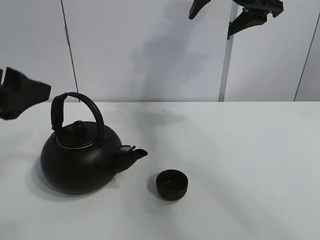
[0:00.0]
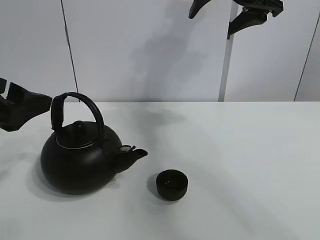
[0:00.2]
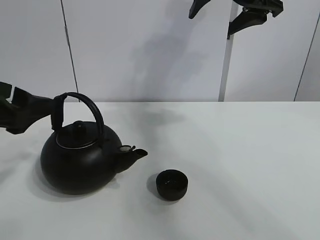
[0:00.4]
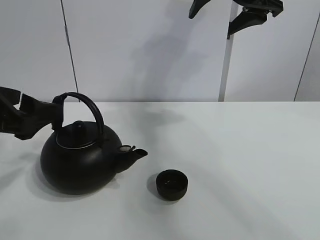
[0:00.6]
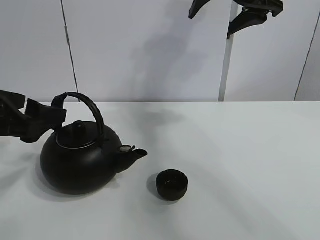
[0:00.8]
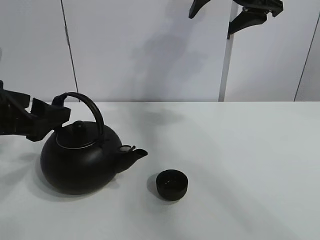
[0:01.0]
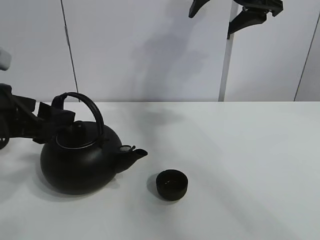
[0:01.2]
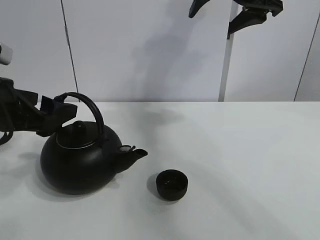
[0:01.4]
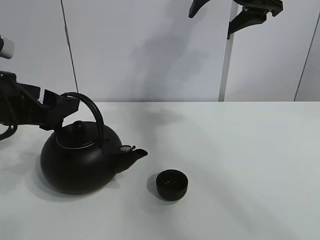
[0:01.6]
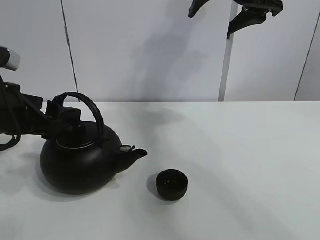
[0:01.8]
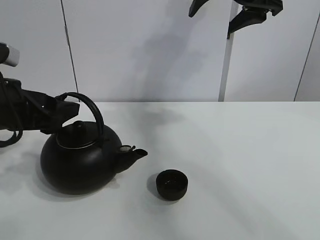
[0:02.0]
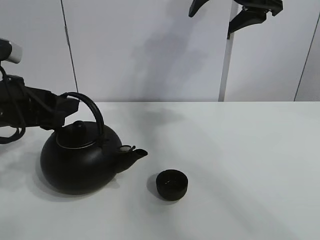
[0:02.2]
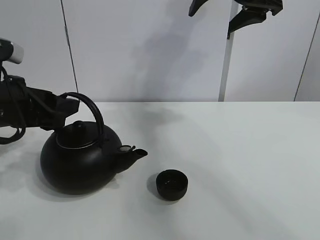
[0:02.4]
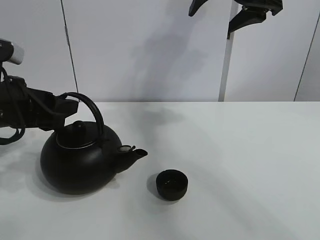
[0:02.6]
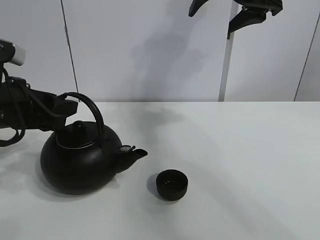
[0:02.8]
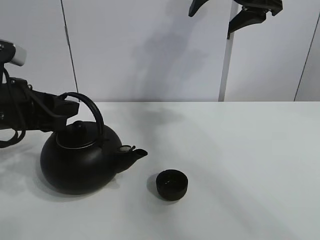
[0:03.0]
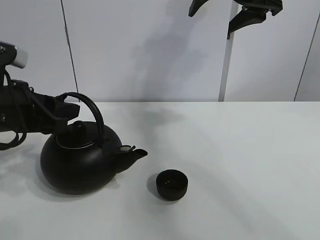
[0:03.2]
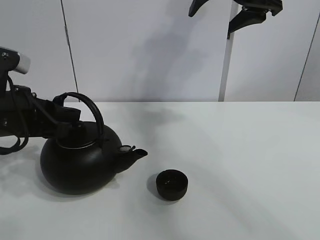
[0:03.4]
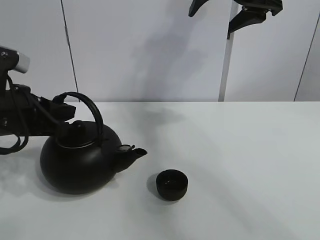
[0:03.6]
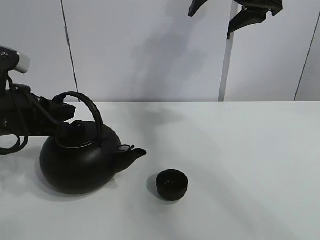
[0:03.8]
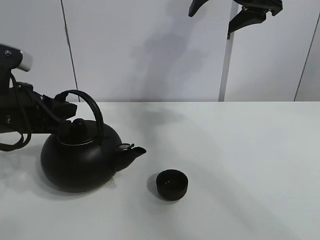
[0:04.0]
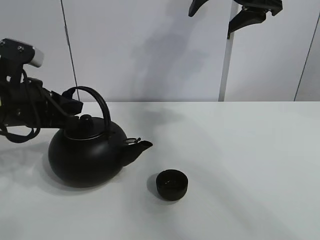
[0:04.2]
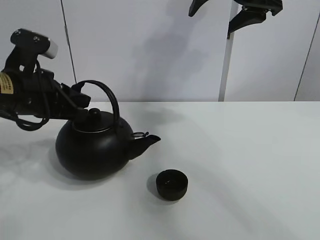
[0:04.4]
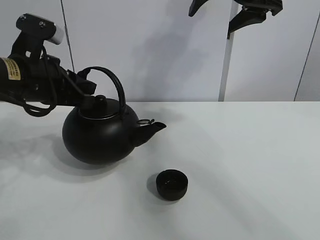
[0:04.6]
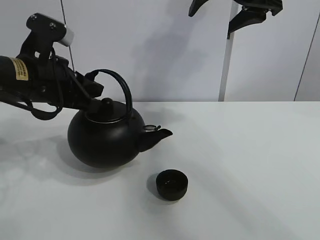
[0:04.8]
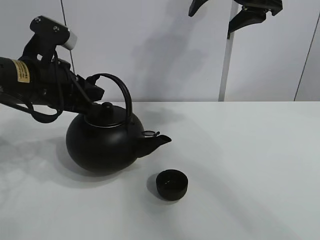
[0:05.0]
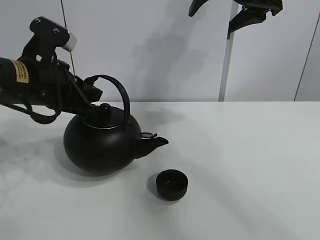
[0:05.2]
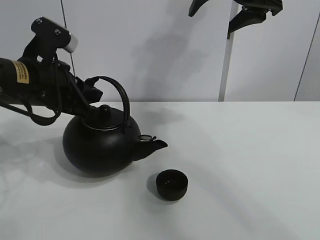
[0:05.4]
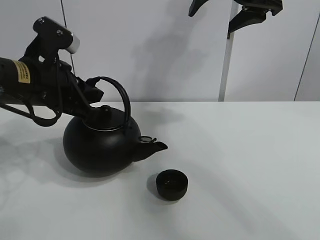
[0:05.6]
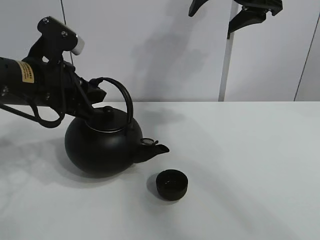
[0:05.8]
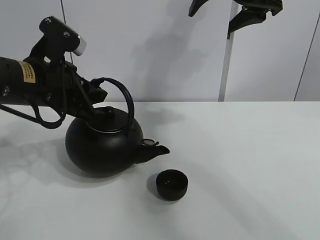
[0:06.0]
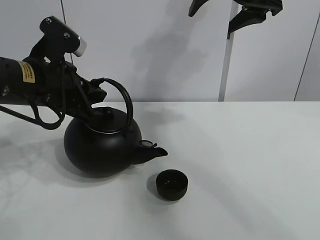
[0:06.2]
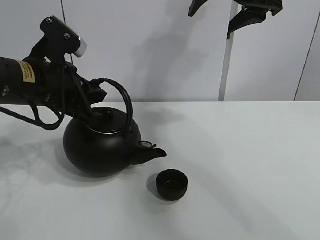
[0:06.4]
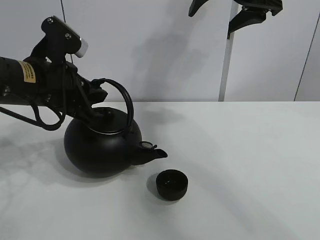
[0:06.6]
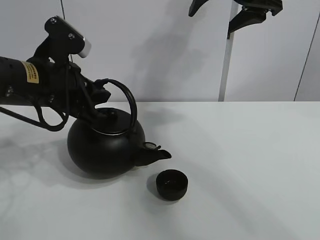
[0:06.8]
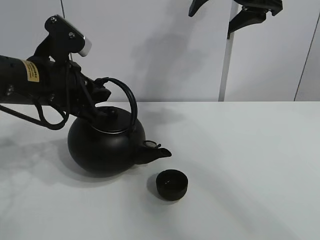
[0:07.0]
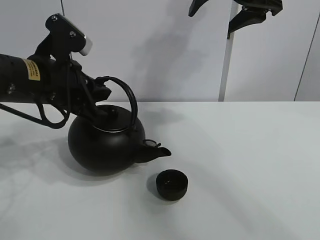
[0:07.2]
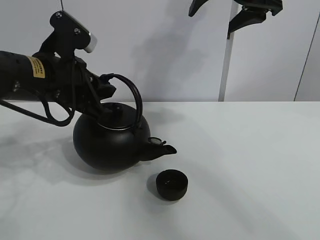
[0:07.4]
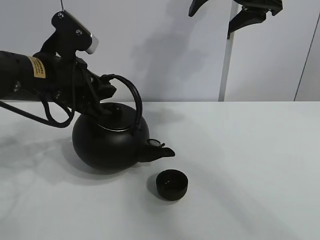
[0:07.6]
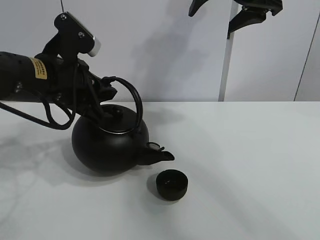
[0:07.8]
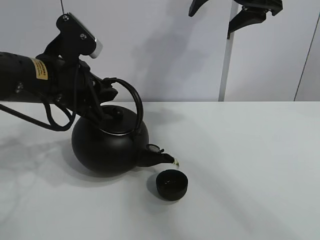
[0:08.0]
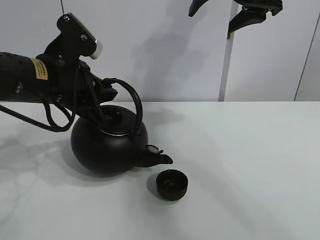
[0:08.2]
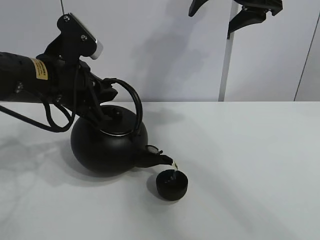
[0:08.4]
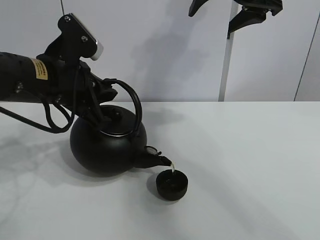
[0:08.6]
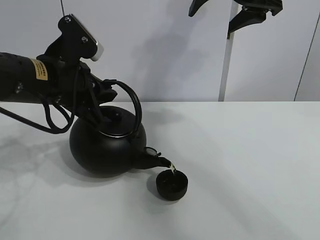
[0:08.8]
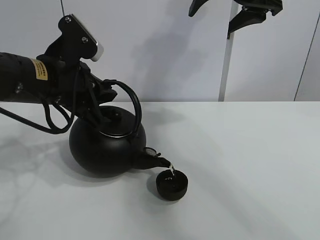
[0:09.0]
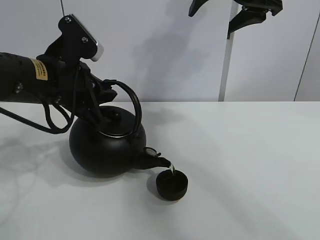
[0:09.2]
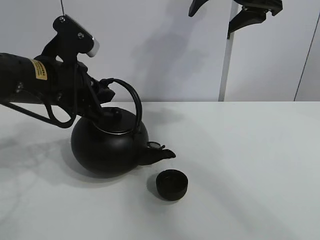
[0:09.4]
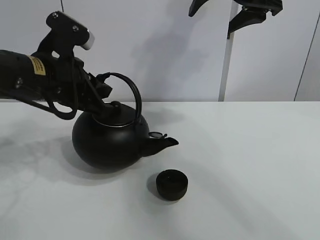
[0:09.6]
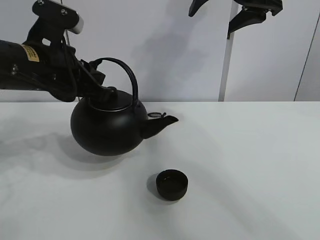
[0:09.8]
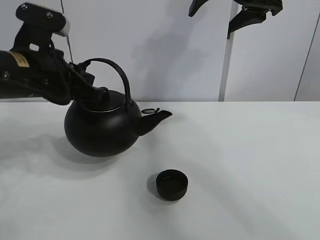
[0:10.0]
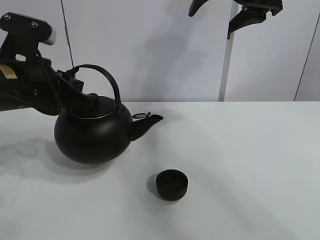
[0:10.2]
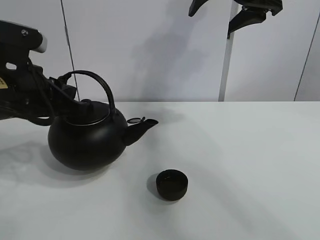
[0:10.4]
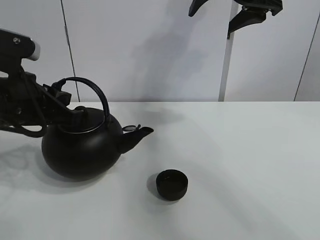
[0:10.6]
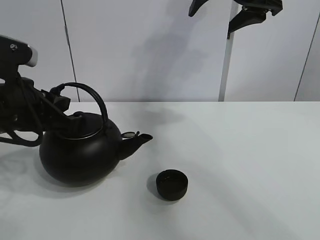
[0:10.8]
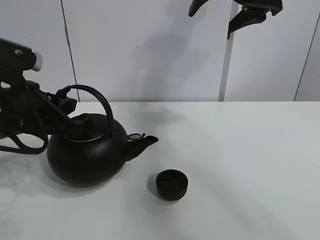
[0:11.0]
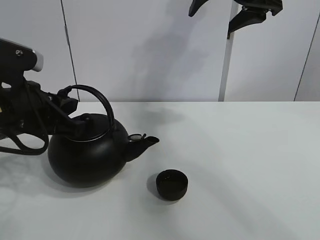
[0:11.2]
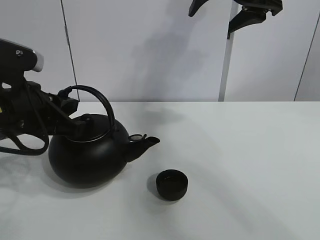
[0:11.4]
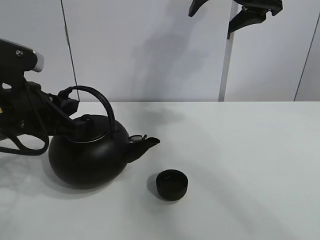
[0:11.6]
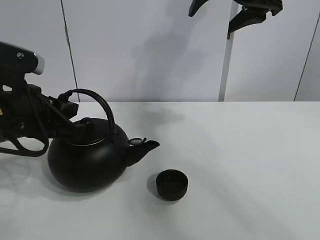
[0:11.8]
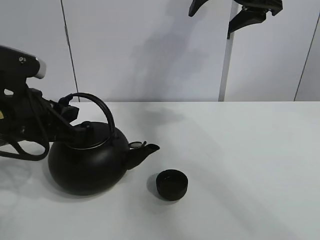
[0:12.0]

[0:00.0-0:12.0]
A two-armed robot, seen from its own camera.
Task of the whole recording: pour tea into the teacup.
Step, 0:00.0 to 0:04.0: Pick up the teapot with the left gripper.
Step, 0:04.2 to 0:09.4: Pour tea into the teacup with the left gripper.
0:00.0 to 0:01.6: The left gripper travels downward and forward by roughly 10 cm.
0:01.6 to 0:03.0: The left gripper closes its fingers.
0:03.0 to 0:04.4: The left gripper closes.
0:04.4 to 0:07.6: The grippers stay close to where they were, moving slightly.
0:07.6 to 0:09.0: The grippers move only a little.
0:10.4 to 0:12.0: The grippers stay close to where they were, moving slightly.

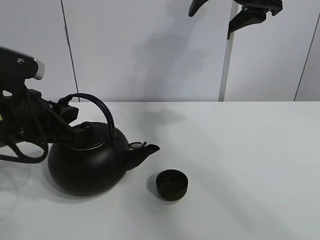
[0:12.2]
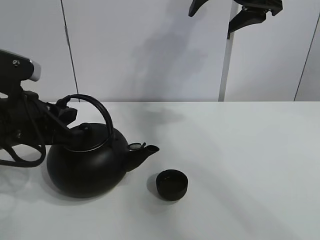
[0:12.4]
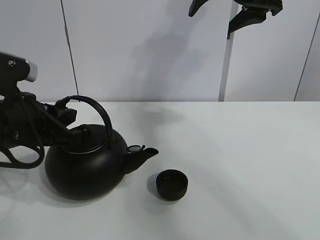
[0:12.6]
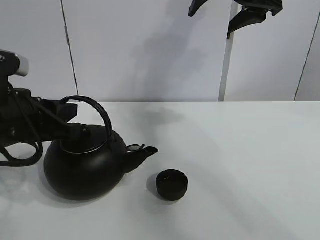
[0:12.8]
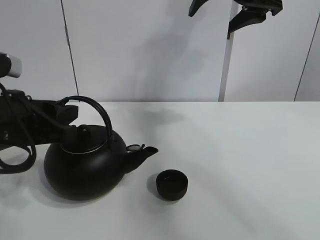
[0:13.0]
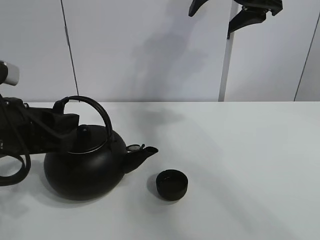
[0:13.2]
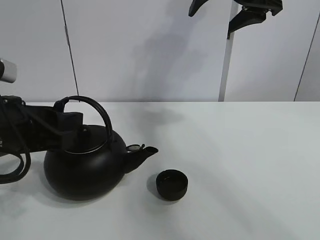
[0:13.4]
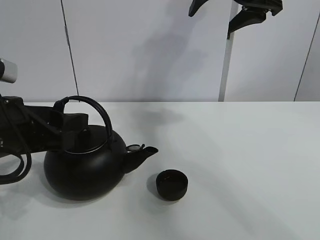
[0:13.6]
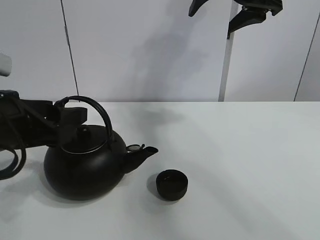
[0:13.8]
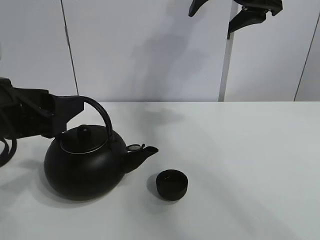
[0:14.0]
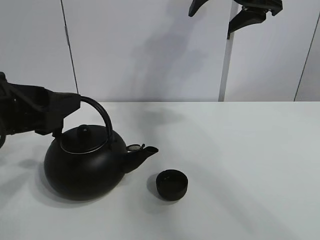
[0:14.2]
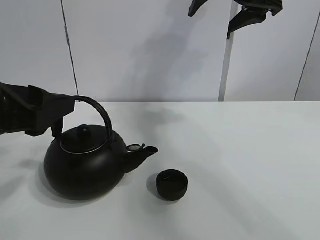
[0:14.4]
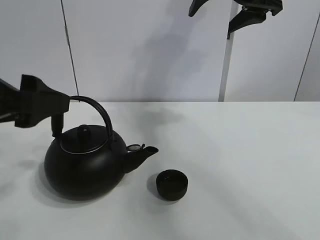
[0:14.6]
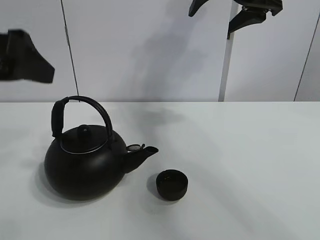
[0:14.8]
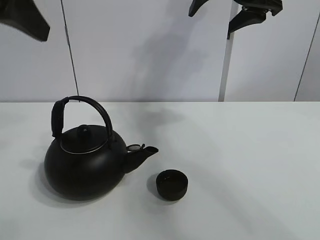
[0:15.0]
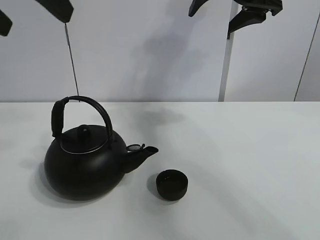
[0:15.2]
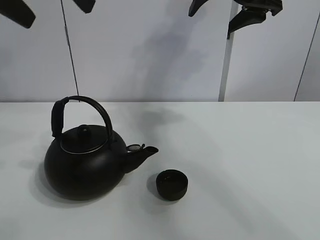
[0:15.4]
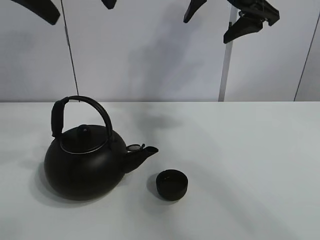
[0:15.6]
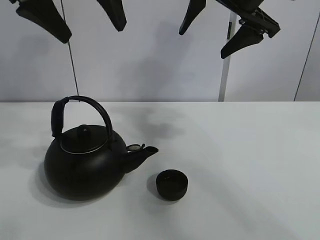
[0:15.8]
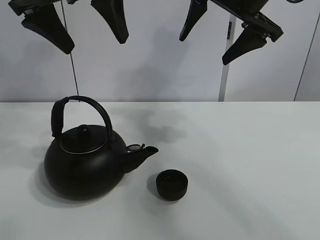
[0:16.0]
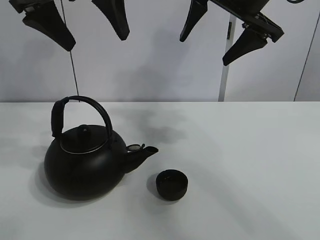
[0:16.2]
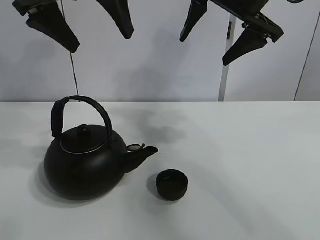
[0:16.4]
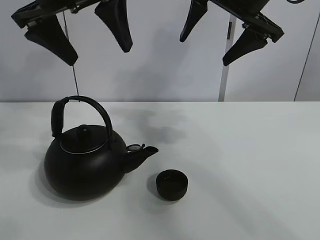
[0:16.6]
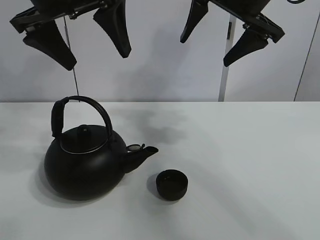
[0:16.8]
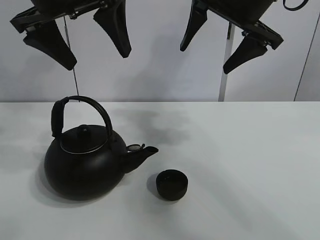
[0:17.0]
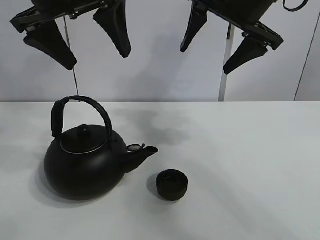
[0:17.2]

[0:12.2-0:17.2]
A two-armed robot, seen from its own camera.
Task of the whole recording: pour tea into the teacup.
0:12.2 to 0:13.8: The left gripper opens up.
0:13.8 to 0:15.6: The left gripper goes some 25 cm upward.
0:15.6 to 0:17.2: The left gripper is displaced downward by some 5 cm.

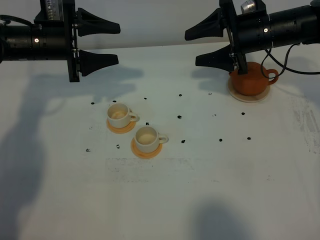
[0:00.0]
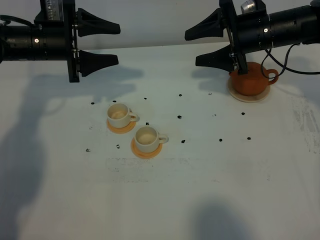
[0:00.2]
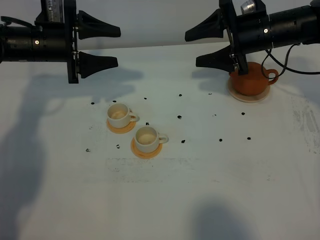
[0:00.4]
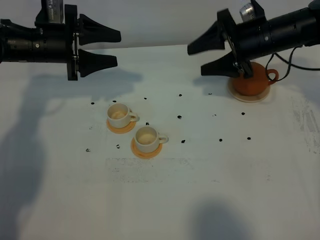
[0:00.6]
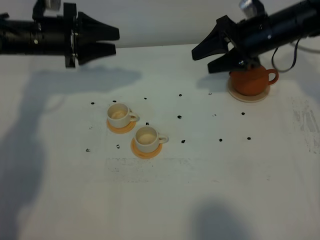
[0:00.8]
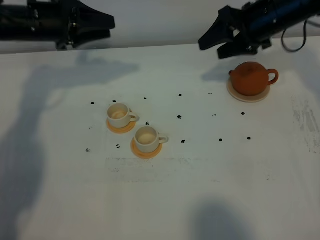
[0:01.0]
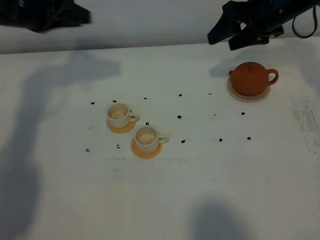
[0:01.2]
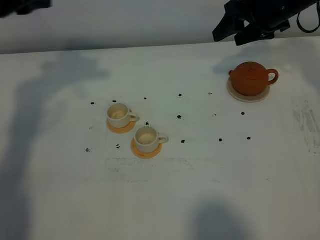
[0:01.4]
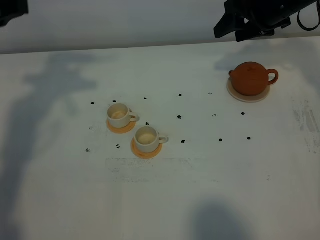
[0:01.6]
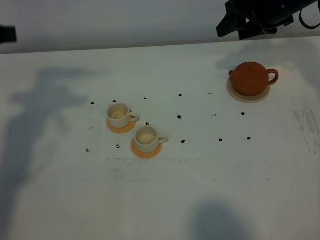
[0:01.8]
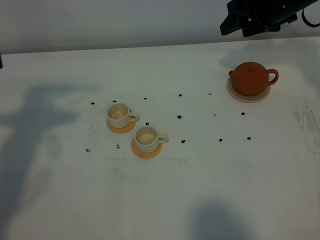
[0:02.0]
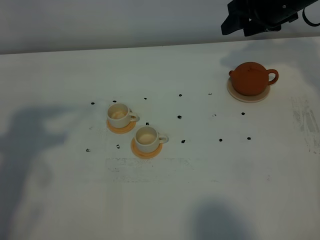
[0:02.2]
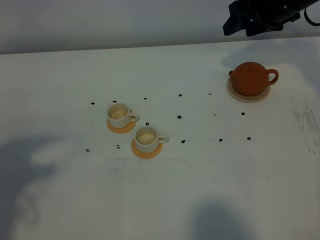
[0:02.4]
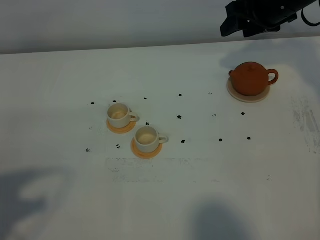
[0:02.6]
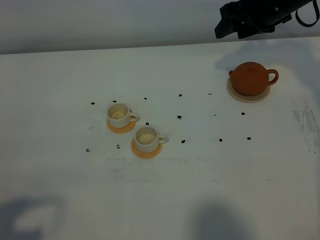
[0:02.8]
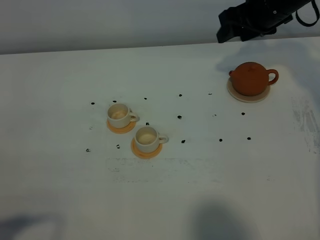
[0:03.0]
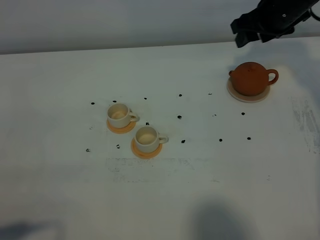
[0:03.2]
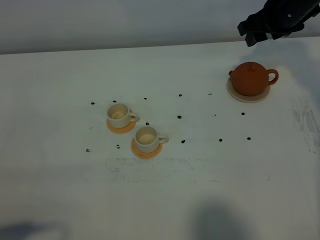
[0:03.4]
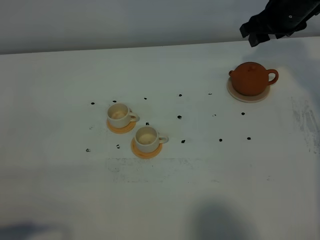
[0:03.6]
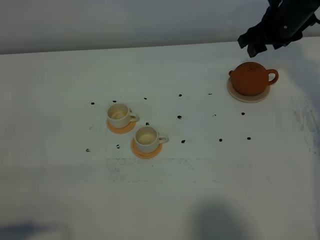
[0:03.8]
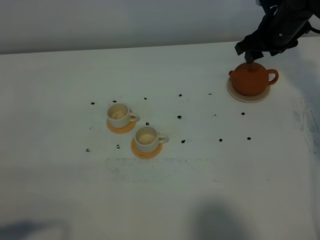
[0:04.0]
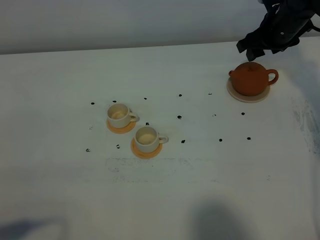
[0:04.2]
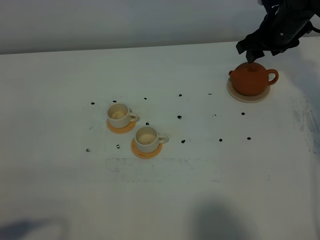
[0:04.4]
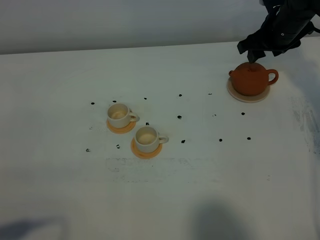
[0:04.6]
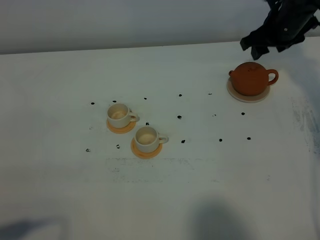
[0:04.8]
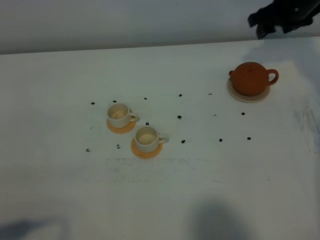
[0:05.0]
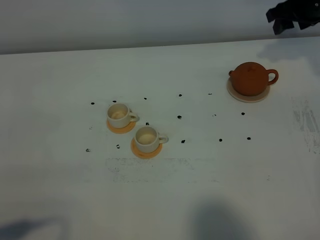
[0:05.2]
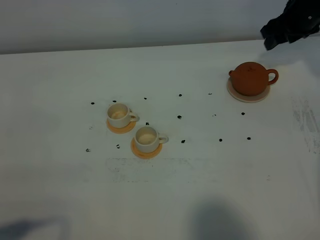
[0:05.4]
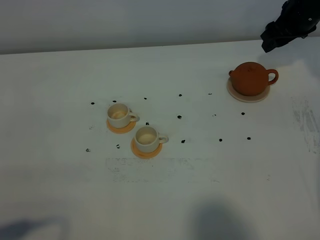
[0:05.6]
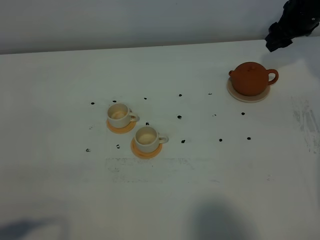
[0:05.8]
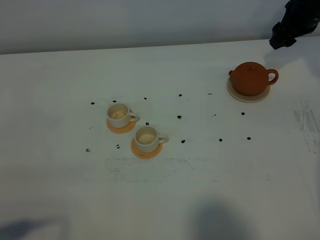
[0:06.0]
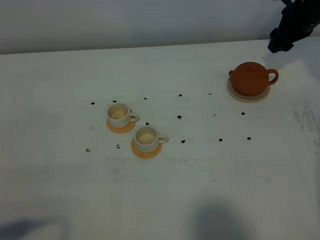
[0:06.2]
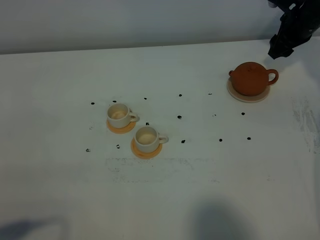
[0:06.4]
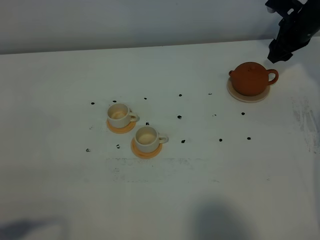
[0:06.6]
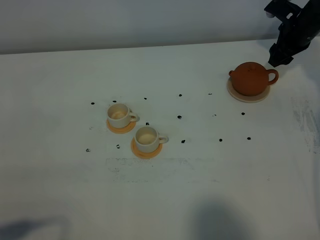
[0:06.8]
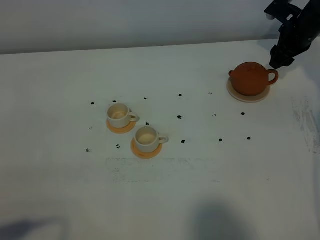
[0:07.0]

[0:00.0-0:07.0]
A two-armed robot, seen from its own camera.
Task of the whole recording: grasp the brown teapot and pour the tea into the two white teacups one by one, put the brown teapot back in its original place.
0:00.0 to 0:01.4: The right gripper changes place by approximately 5 cm, while the left gripper moves upward and backward, about 15 cm.
0:01.4 to 0:02.8: The left gripper shifts approximately 35 cm backward.
0:02.8 to 0:04.2: Both grippers travel together downward, about 5 cm.
0:04.2 to 0:05.6: The right gripper moves roughly 5 cm.
0:05.6 to 0:07.0: The right gripper is displaced downward by some 5 cm.
